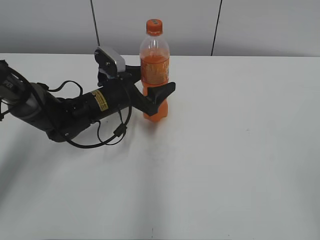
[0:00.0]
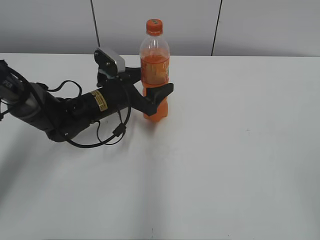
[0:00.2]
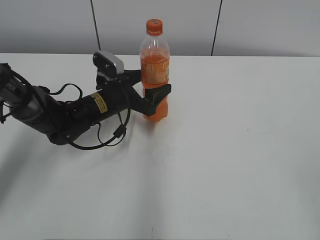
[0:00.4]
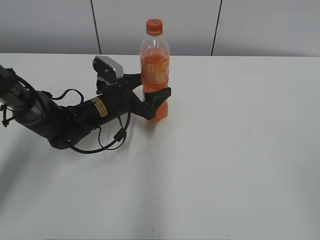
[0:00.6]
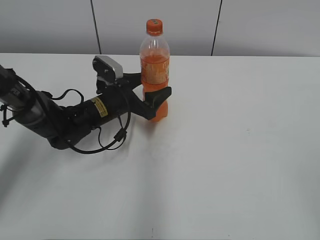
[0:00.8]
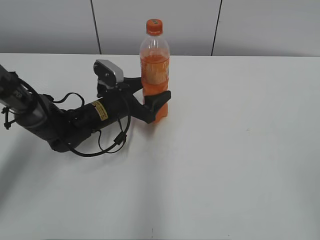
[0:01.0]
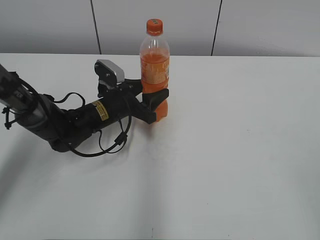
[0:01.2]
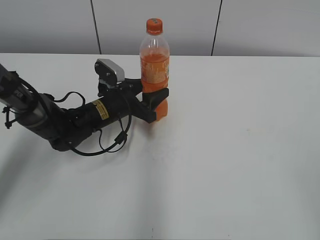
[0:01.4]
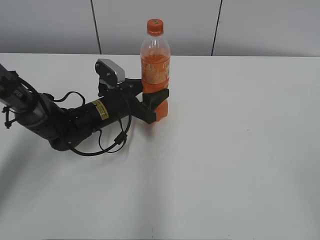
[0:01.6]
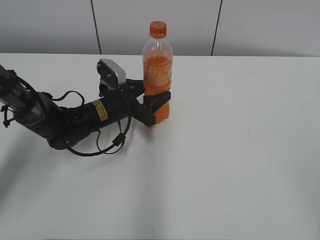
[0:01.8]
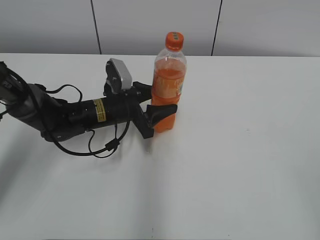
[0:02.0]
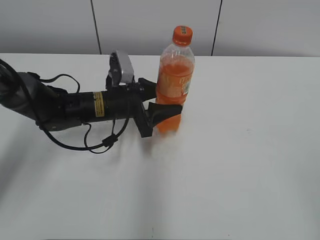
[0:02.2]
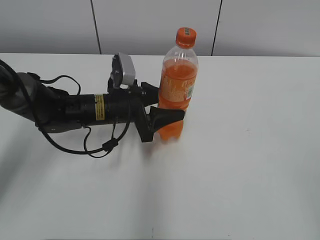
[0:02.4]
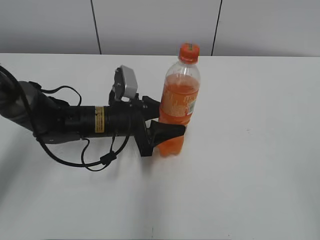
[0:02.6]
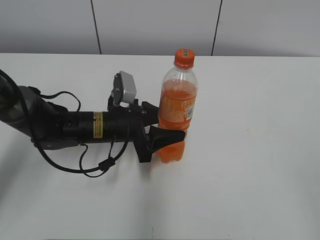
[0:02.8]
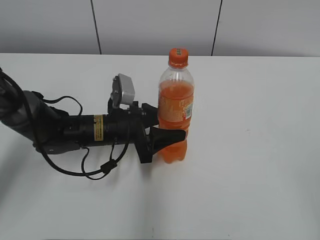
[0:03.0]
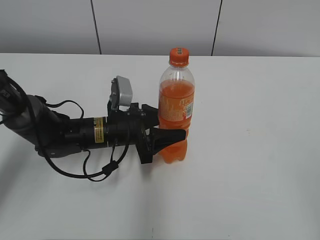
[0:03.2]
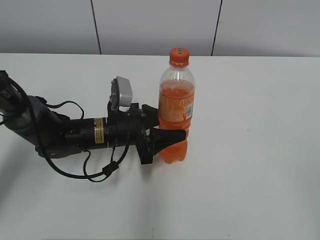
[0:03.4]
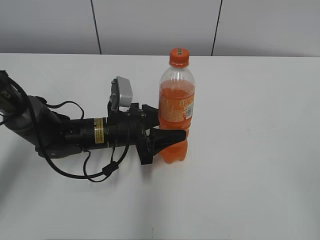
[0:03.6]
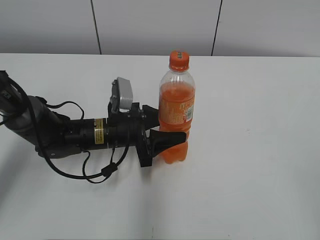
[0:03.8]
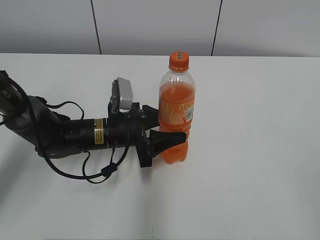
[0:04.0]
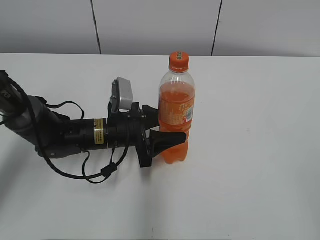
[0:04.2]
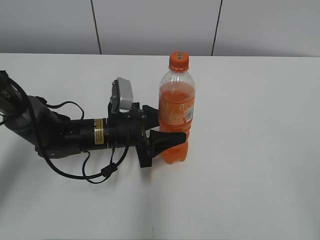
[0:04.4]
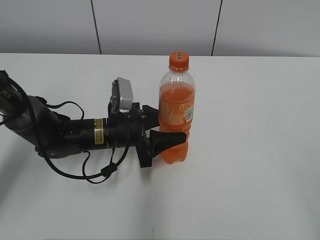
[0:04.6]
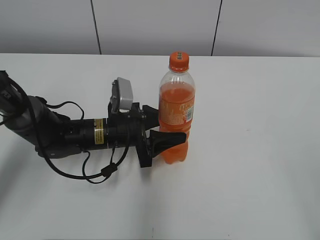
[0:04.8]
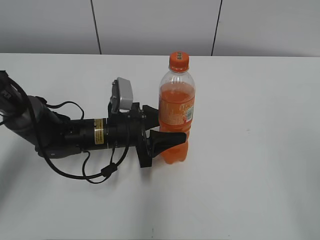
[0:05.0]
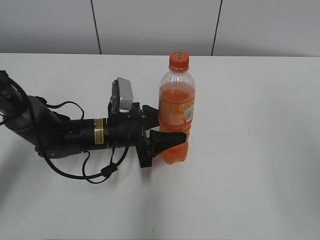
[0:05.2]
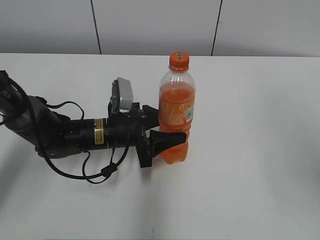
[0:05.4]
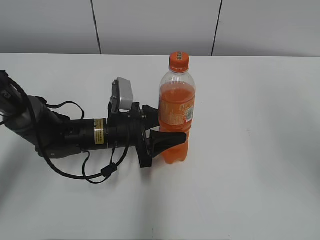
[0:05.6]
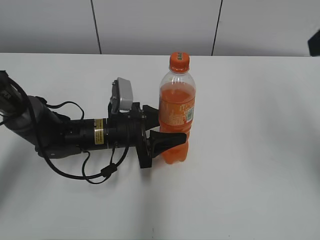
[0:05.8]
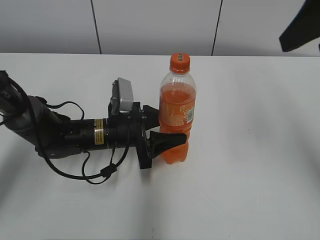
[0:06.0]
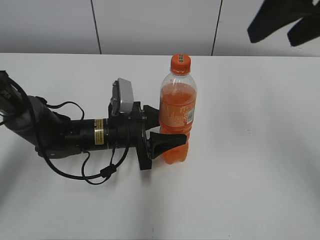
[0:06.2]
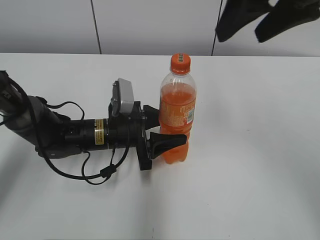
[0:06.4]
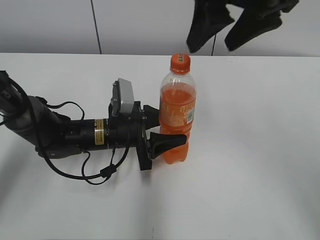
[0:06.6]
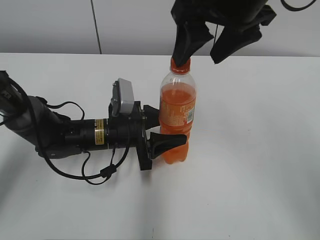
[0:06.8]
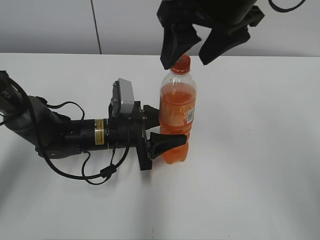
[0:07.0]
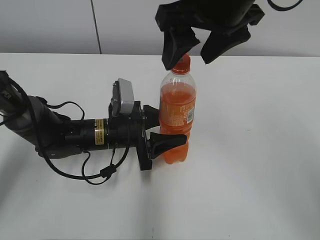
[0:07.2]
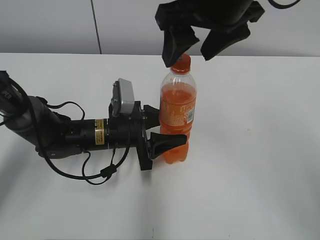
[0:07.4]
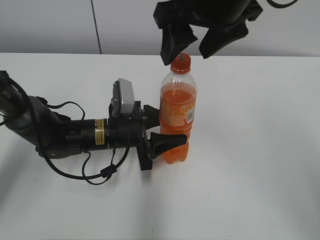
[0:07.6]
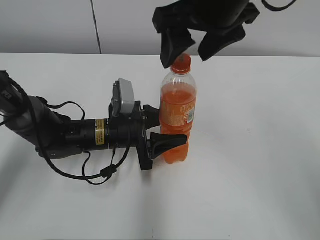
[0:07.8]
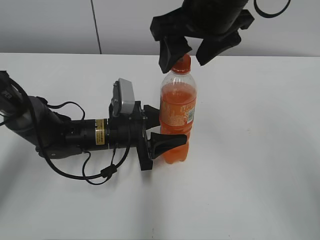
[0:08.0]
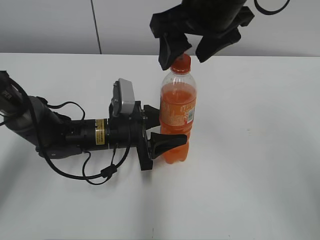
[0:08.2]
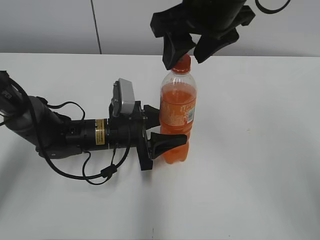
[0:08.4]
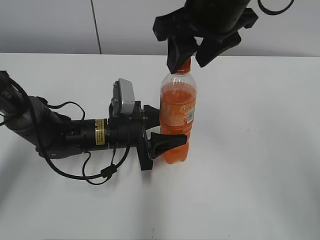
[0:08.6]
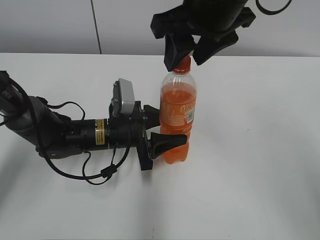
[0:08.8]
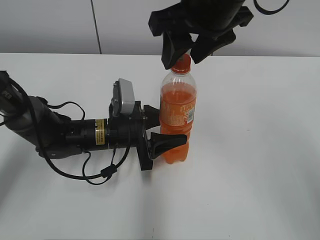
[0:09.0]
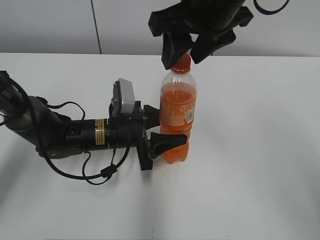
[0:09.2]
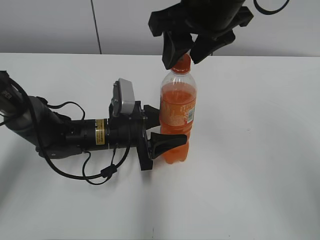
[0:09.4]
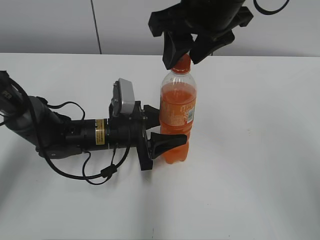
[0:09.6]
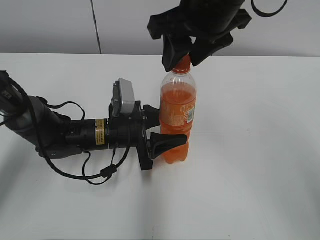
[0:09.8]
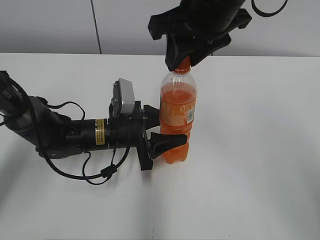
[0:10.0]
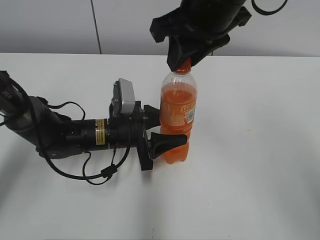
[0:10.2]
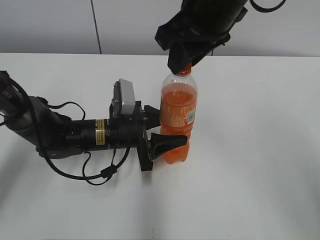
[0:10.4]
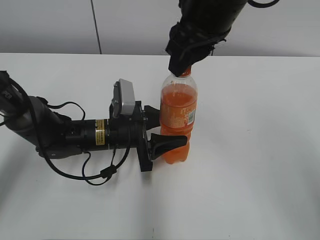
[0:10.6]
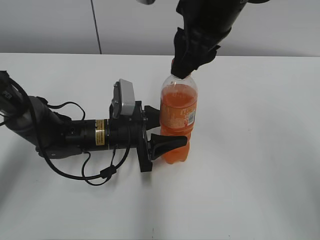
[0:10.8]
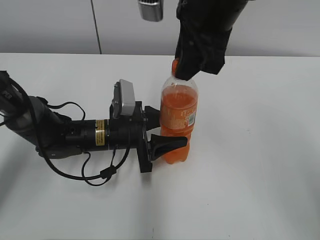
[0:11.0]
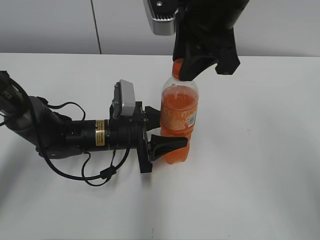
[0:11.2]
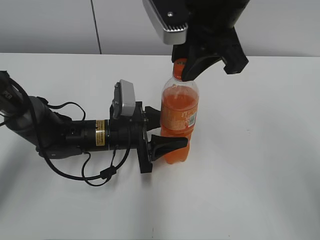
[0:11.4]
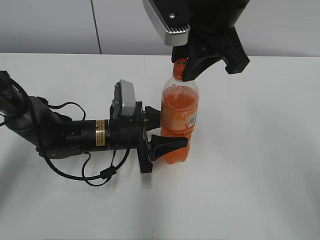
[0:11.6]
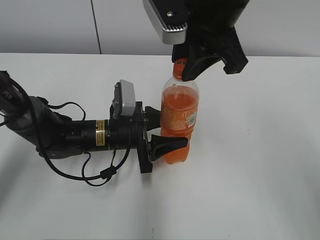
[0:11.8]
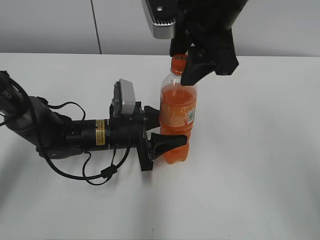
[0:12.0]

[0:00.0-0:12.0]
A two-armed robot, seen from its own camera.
Step, 0:02.0 to 0:04.4: Move the Mirinda from left to right.
0:00.0 to 0:01.6: The left gripper closes.
0:01.6 to 0:03.0: The left gripper is displaced backward by roughly 5 cm.
0:03.0 to 0:04.4: Both grippers stay put.
0:04.4 to 0:06.0: The right gripper goes roughly 25 cm forward.
0:06.0 to 0:07.6: The right gripper shifts approximately 15 cm to the left.
0:07.6 to 0:09.0: The right gripper closes its fingers.
0:09.0 to 0:10.4: The right gripper closes.
0:10.4 to 0:12.0: The right gripper opens up.

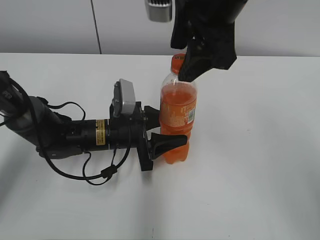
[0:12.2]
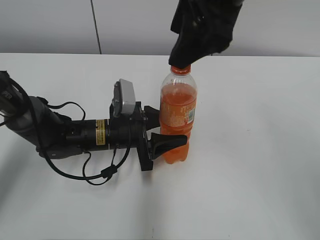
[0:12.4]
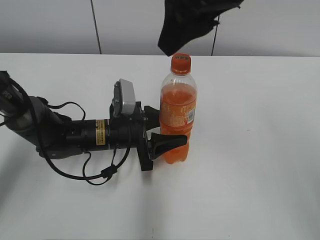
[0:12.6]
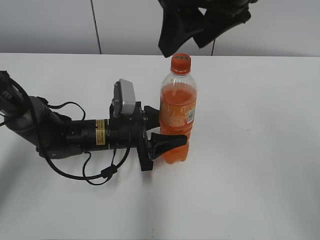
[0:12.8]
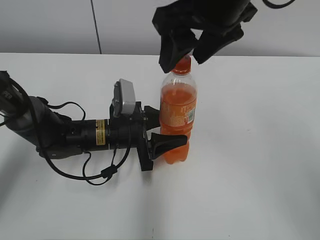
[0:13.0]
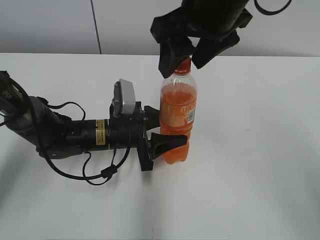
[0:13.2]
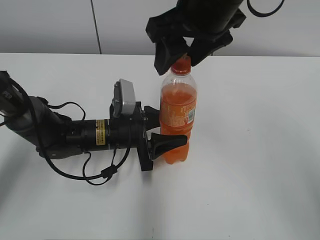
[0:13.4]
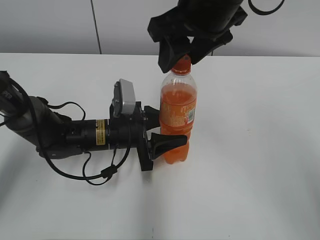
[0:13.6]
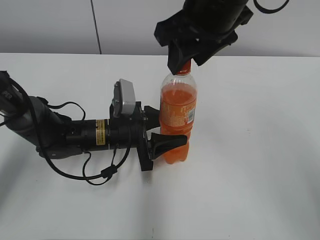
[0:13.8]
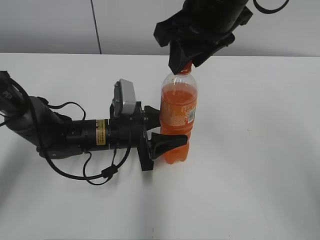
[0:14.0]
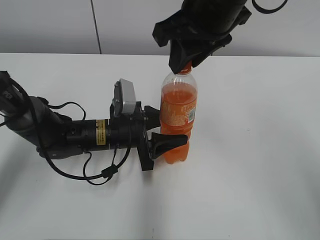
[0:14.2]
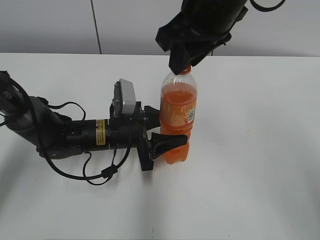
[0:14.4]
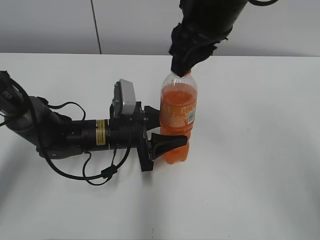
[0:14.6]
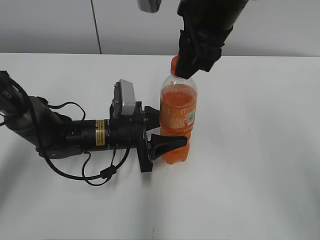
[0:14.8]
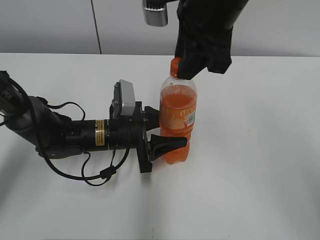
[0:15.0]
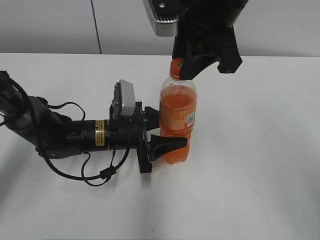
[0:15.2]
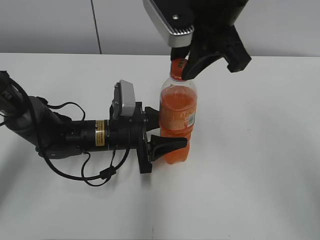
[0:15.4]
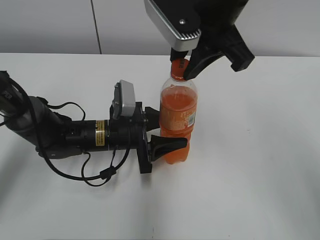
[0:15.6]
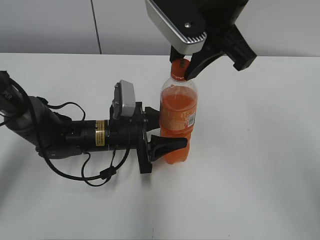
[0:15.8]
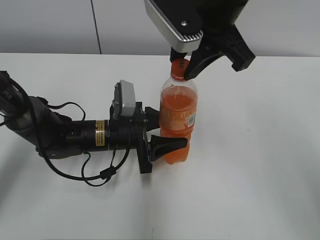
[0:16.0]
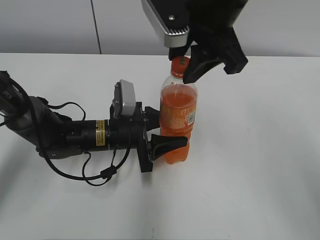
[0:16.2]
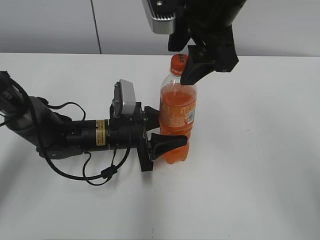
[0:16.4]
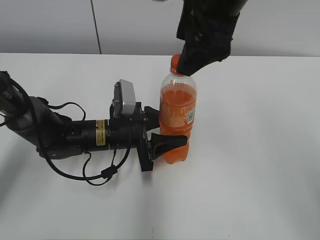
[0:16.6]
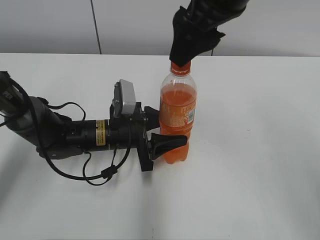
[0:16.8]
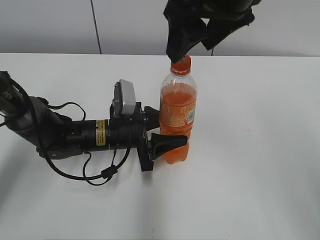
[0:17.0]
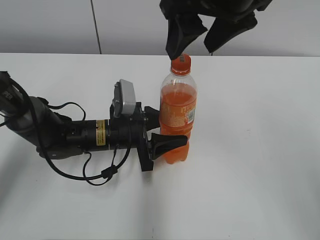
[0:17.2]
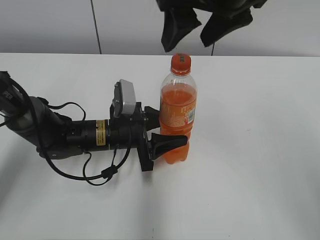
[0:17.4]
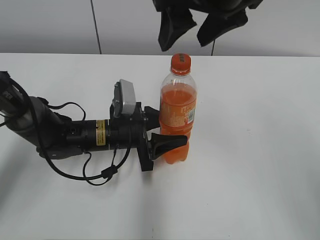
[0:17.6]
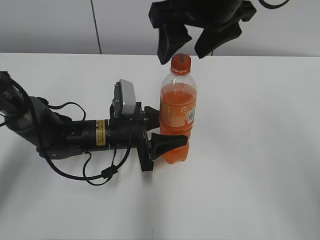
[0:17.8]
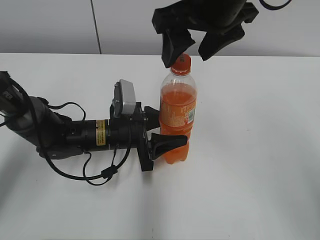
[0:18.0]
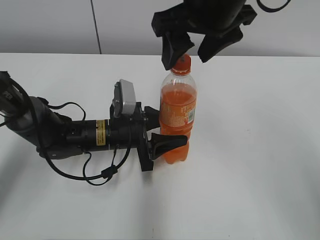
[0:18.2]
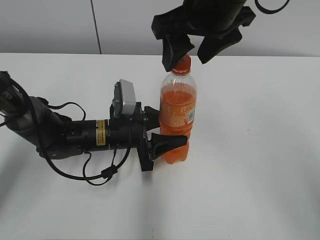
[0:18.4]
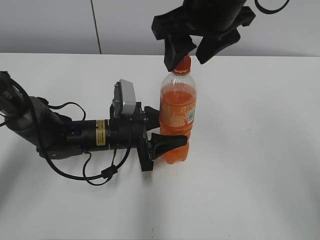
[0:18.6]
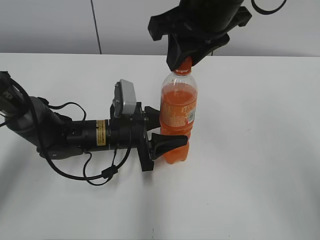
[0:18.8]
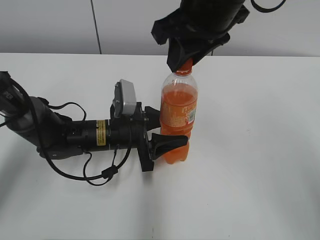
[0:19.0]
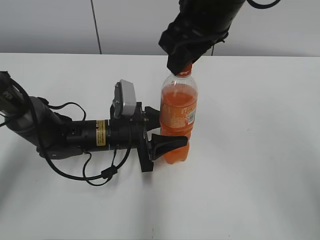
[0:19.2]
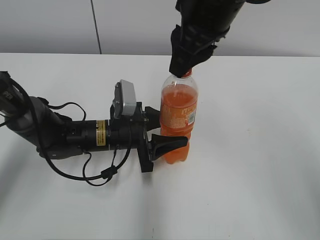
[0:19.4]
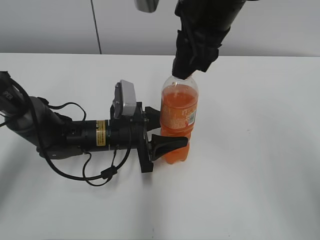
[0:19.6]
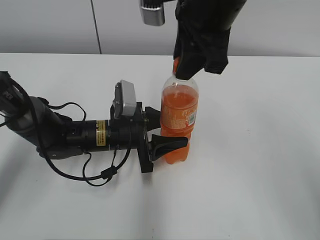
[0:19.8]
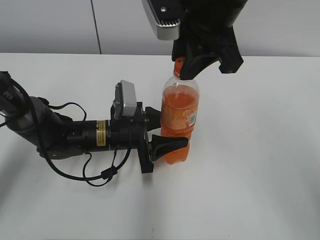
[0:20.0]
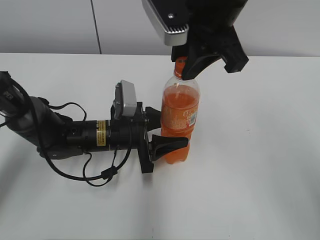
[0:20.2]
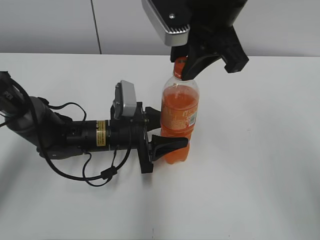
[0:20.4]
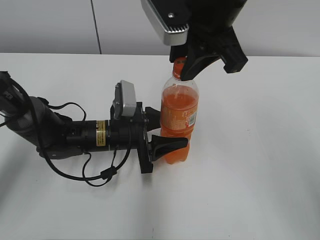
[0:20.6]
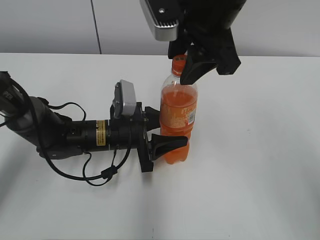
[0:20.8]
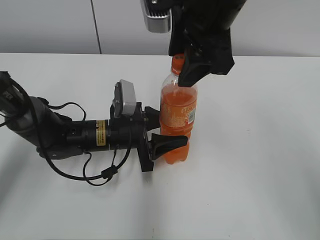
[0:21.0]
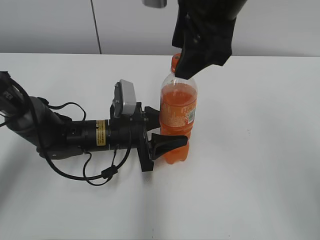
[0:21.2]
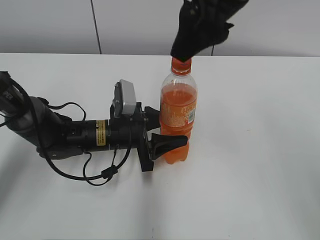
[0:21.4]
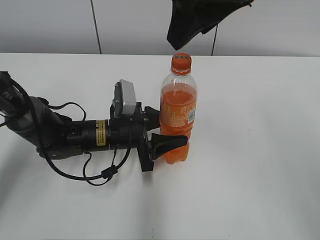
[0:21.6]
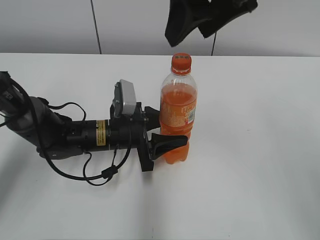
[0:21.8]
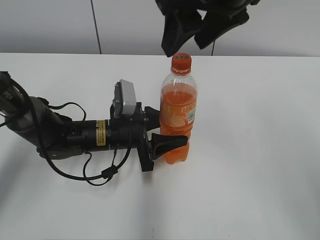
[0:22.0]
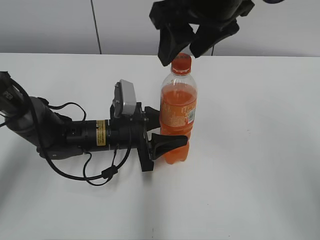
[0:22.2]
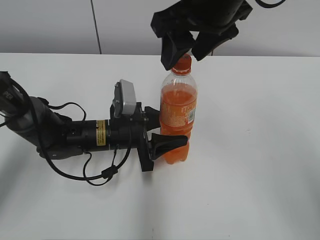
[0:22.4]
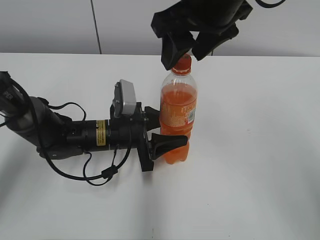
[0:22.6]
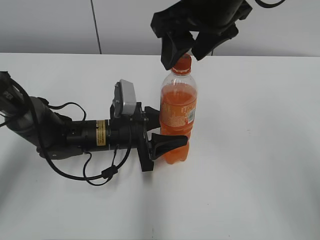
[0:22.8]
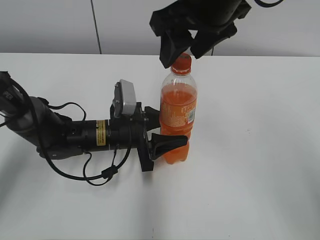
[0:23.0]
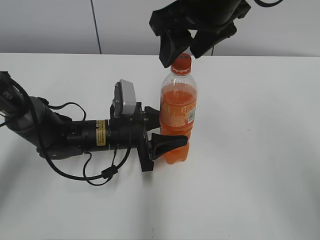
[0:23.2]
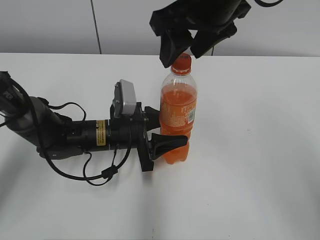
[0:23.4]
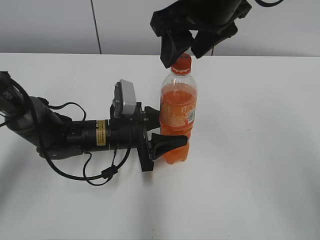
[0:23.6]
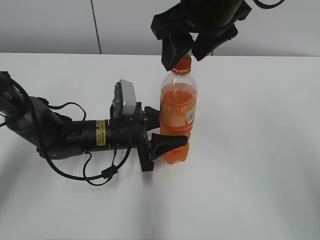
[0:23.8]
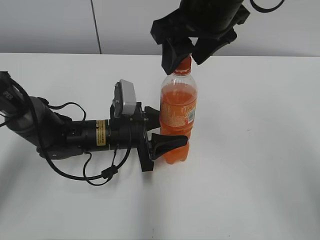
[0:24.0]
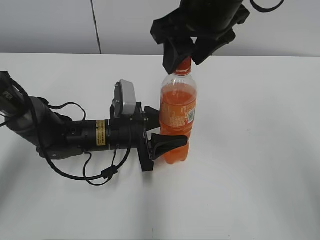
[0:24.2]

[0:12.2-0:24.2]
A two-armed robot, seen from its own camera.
0:13.8 to 0:15.2: The right gripper closes.
0:15.2 to 0:16.6: The right gripper opens up.
0:18.2 to 0:19.8: The right gripper closes its fingers.
0:19.8 to 0:21.2: The right gripper opens.
0:22.6 to 0:24.2: Neither gripper changes place.
